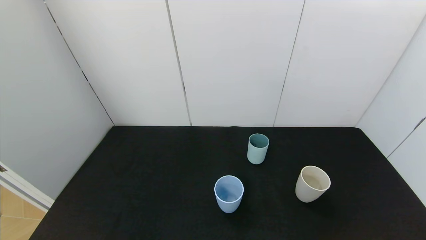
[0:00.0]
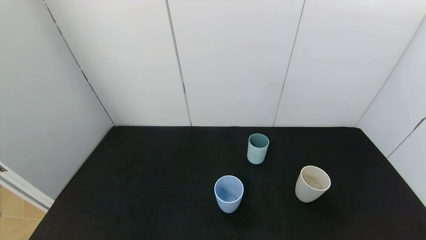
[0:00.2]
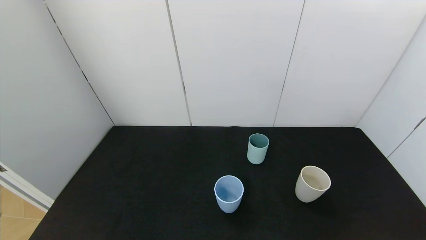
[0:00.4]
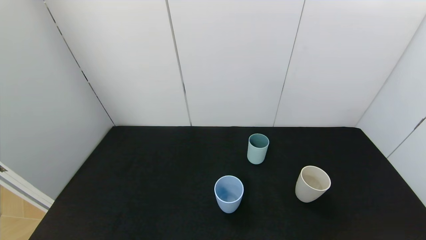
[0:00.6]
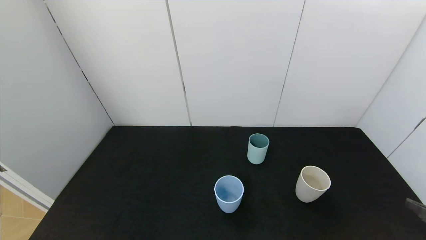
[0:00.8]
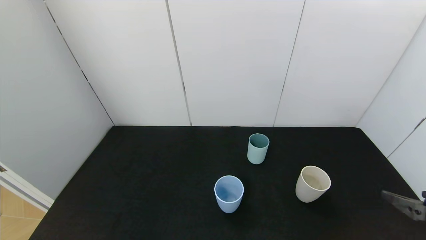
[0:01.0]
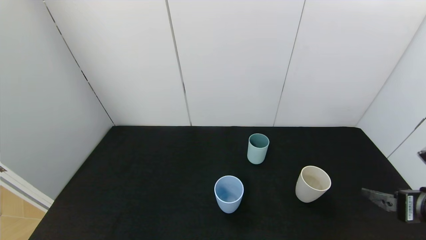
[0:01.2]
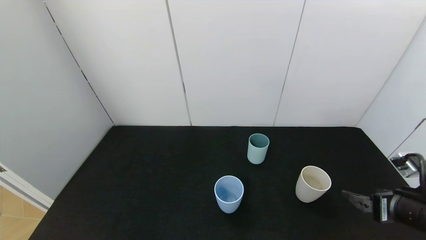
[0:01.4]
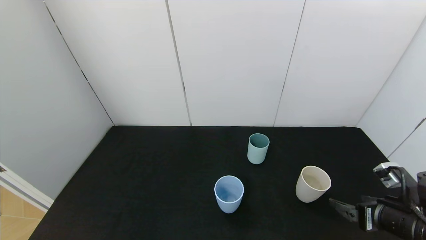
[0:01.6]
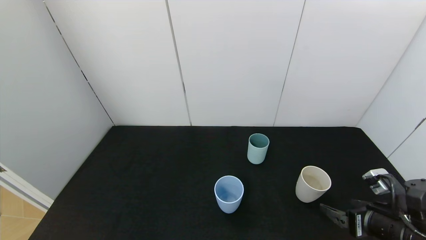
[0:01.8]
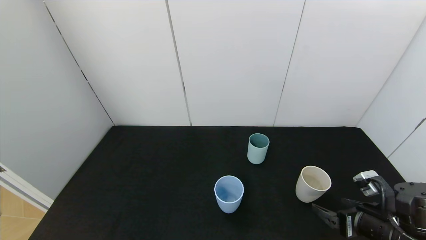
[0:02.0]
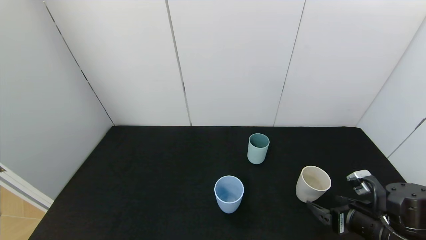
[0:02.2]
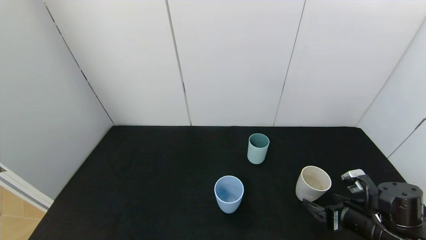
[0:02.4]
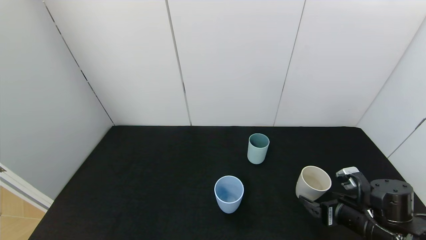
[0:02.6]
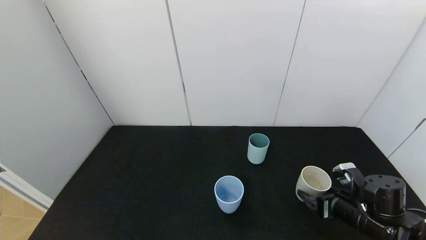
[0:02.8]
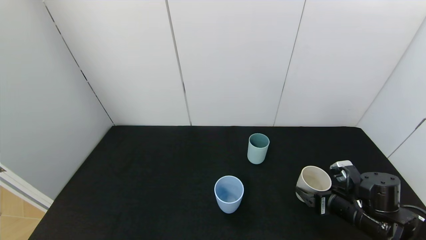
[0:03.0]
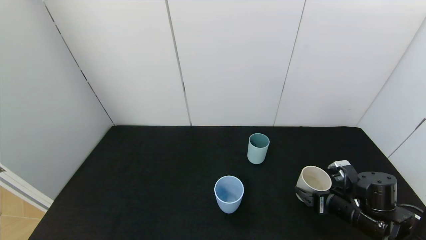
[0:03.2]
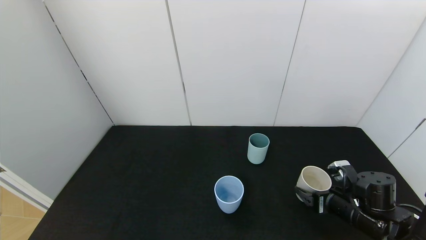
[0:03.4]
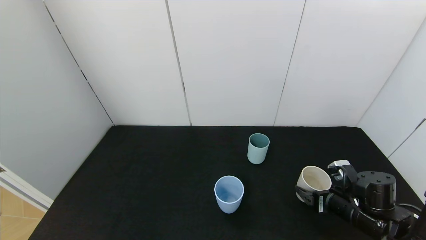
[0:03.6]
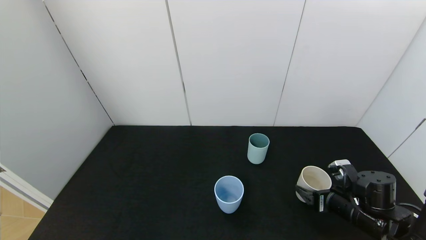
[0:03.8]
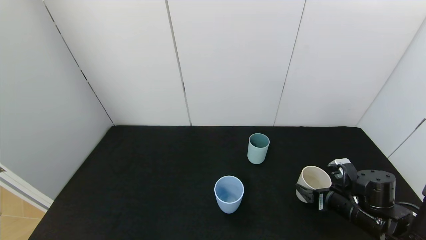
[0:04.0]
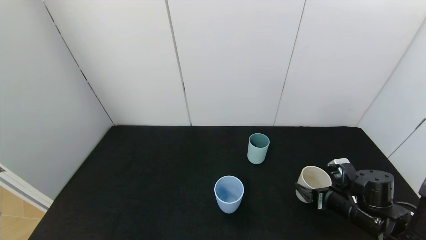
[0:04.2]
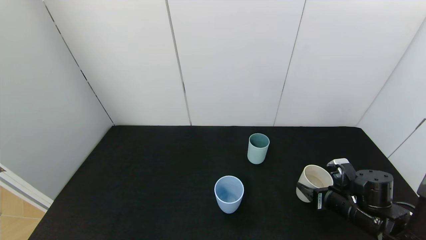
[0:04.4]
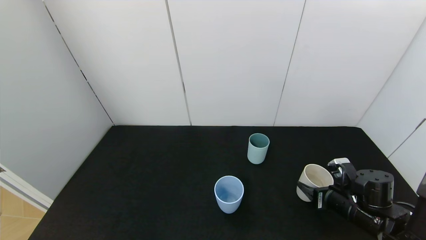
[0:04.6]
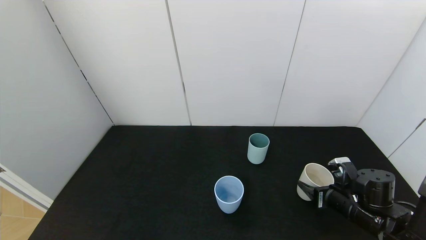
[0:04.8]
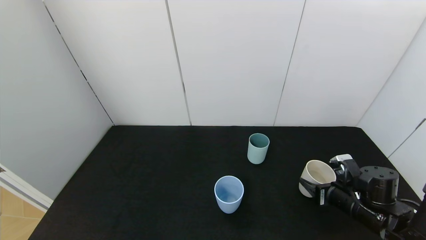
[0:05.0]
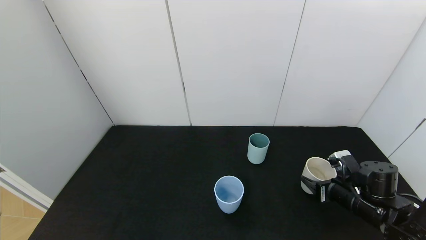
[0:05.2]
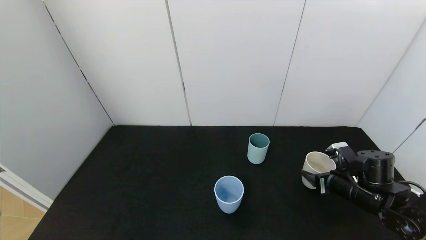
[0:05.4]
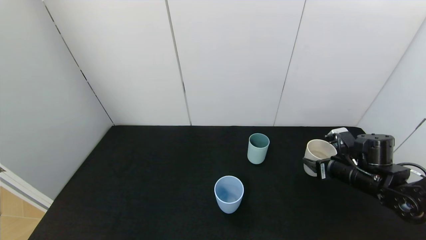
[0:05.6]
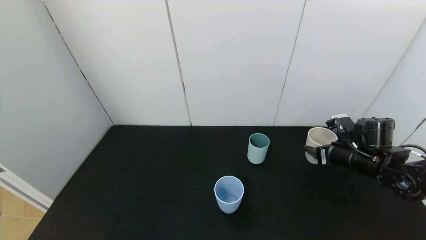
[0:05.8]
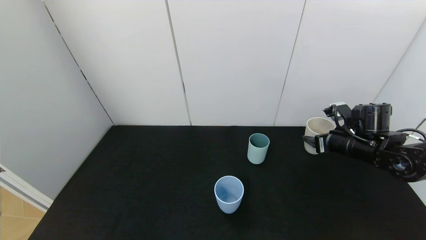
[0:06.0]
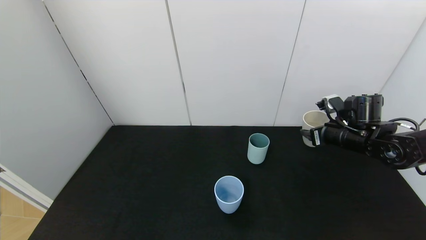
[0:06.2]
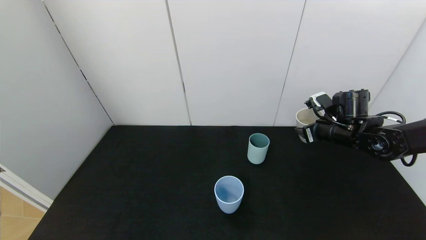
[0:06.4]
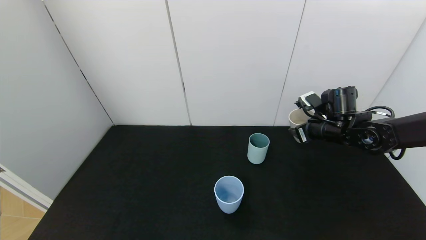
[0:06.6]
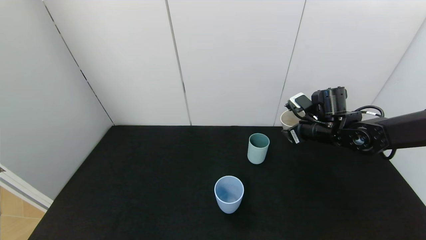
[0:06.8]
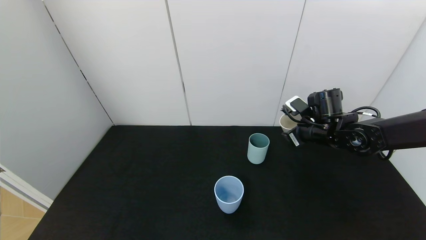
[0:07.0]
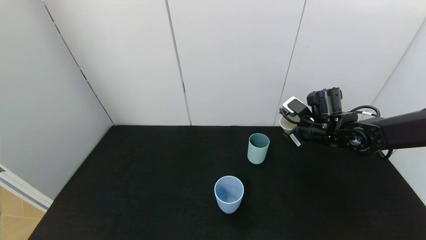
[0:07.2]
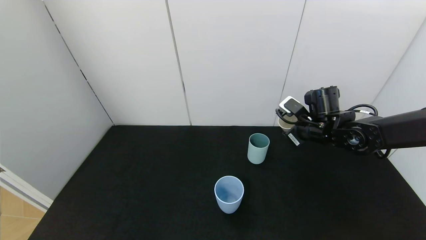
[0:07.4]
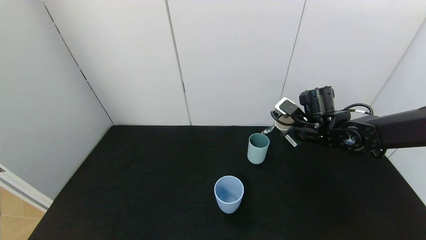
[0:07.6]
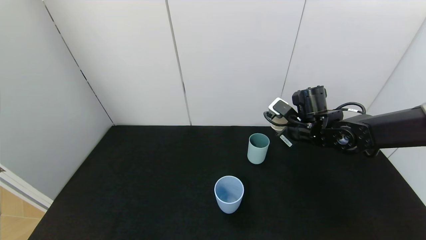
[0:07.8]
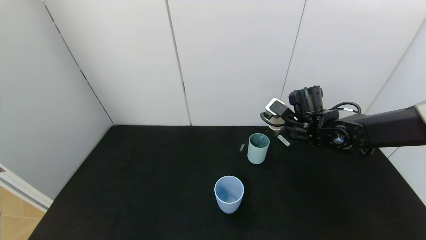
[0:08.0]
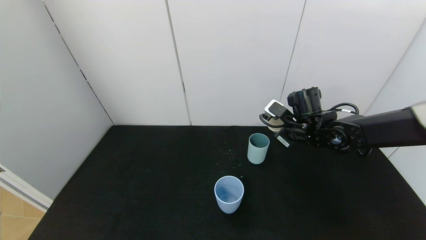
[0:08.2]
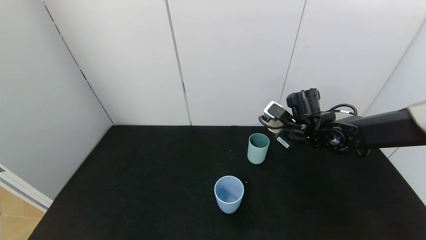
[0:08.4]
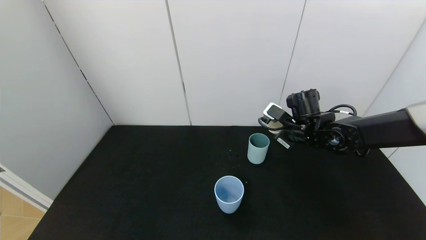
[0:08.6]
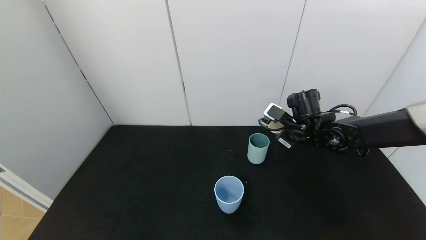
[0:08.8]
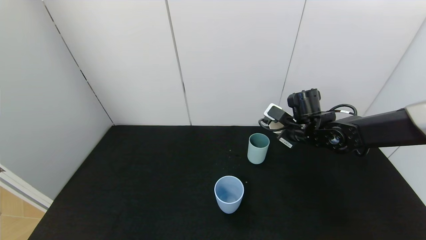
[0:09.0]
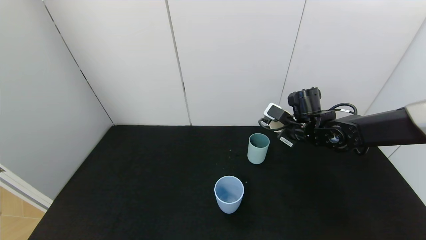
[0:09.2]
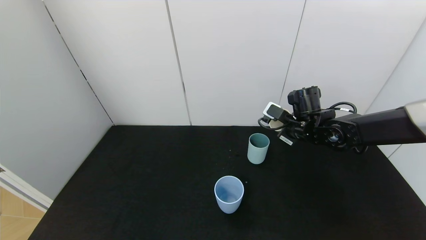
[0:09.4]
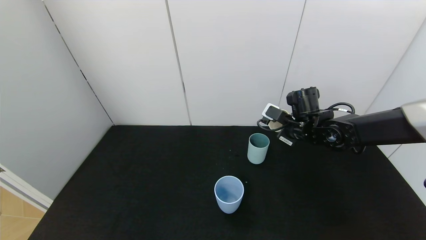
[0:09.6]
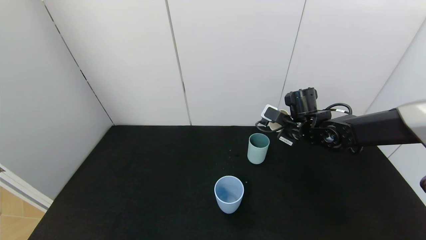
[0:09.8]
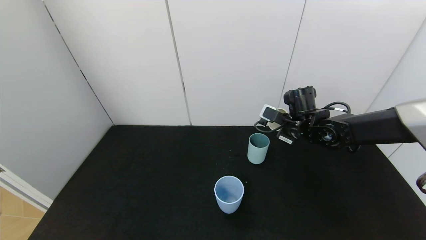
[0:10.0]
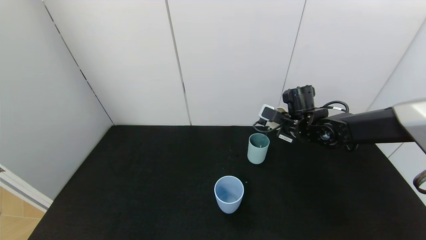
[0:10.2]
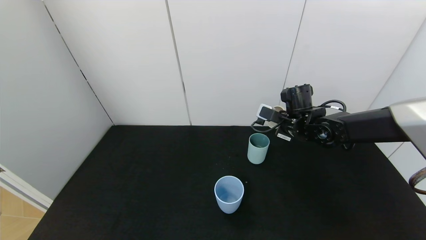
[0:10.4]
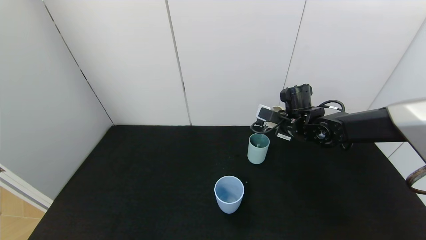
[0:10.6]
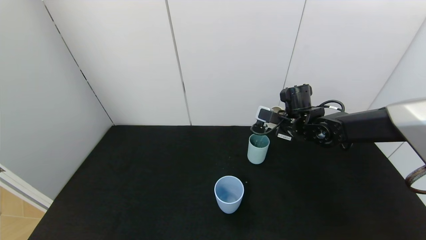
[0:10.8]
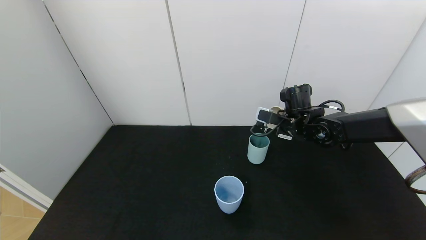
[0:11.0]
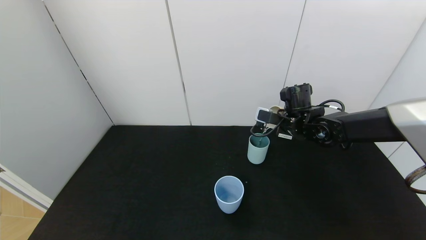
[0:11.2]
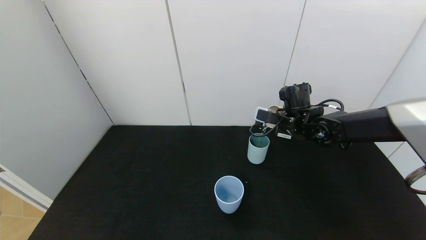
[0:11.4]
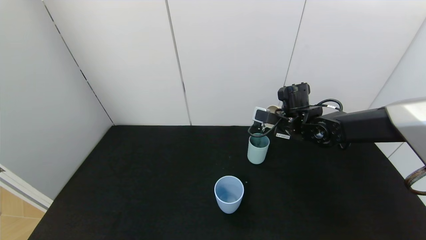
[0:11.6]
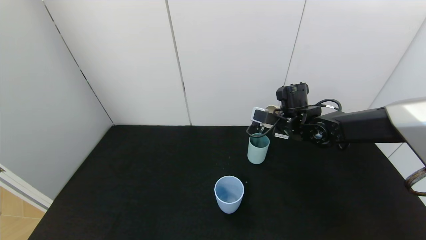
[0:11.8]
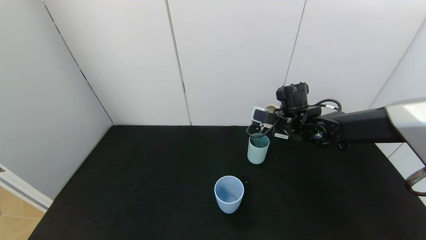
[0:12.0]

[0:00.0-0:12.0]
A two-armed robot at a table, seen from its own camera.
Task of the whole recording: use the gripper to pour the water into the other two cups on black table.
Step, 0:00.0 to 0:04.4: Grasp the white cup with the right gripper.
0:00.0 to 0:01.6: The right gripper heads forward, covering some 20 cm.
0:01.6 to 0:03.0: The right gripper heads forward and downward, covering some 10 cm.
0:03.0 to 0:04.4: The right gripper closes up.
0:04.4 to 0:06.0: The right gripper moves upward and forward, approximately 15 cm.
0:06.0 to 0:07.6: The right gripper is displaced to the left by about 10 cm.
0:07.6 to 0:09.0: The grippers make only small movements.
0:09.0 to 0:10.4: The grippers move only a little.
0:10.4 to 0:12.0: The grippers stay close to where they were, moving slightly.

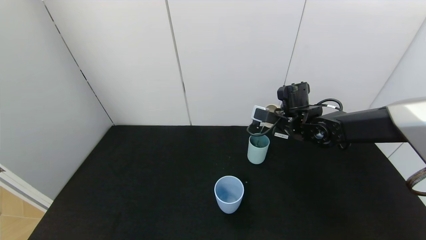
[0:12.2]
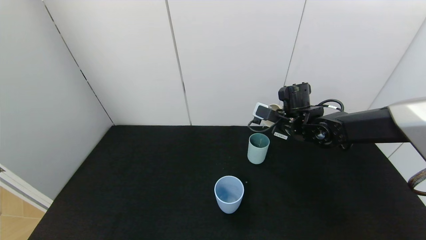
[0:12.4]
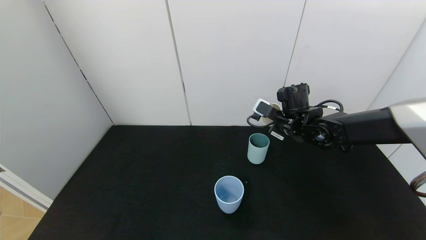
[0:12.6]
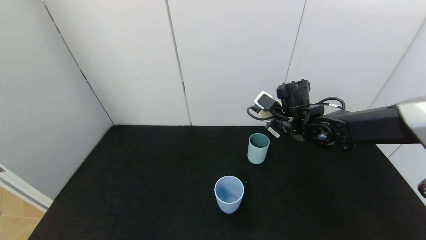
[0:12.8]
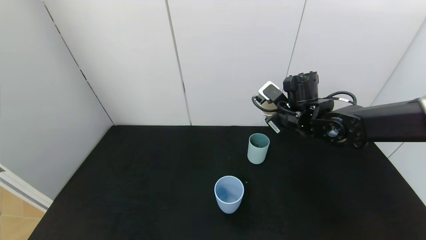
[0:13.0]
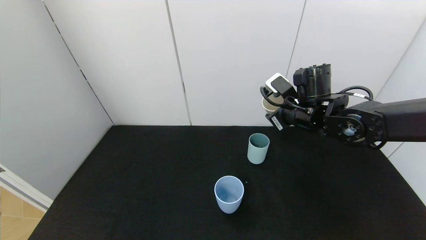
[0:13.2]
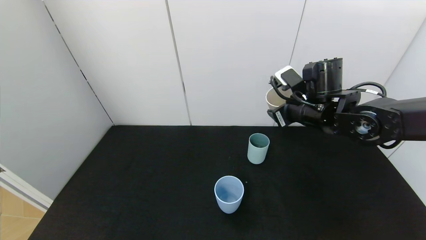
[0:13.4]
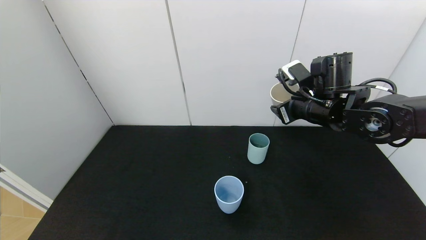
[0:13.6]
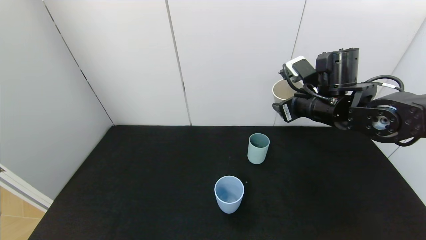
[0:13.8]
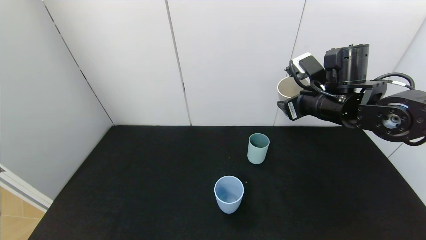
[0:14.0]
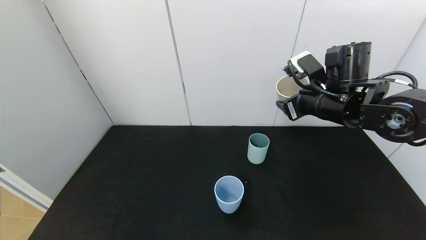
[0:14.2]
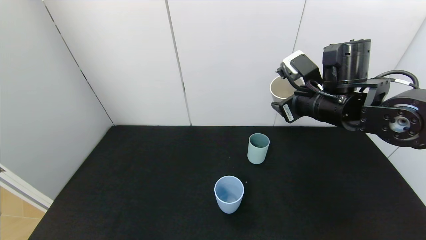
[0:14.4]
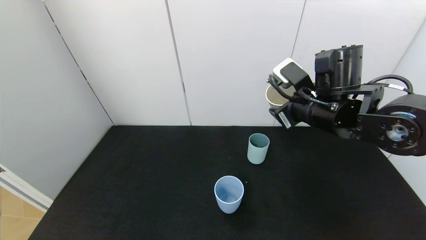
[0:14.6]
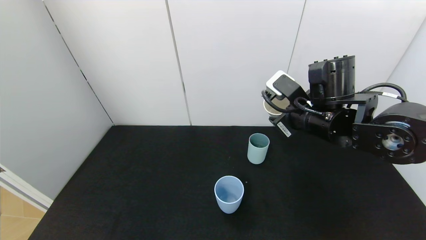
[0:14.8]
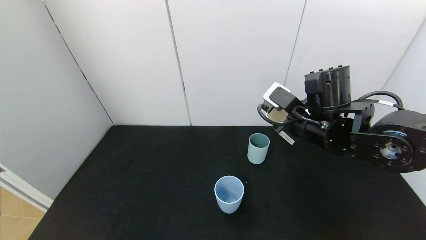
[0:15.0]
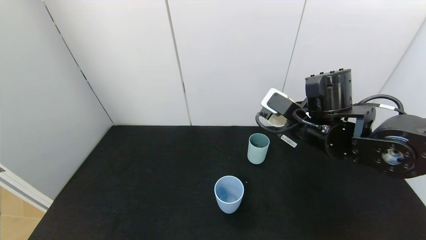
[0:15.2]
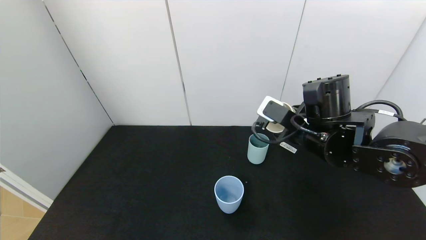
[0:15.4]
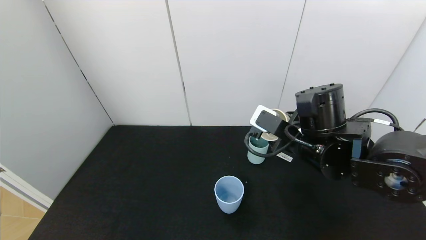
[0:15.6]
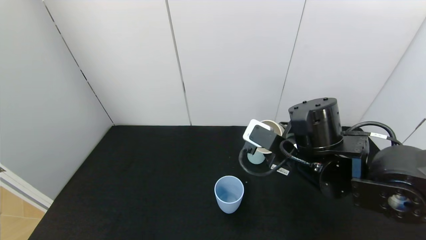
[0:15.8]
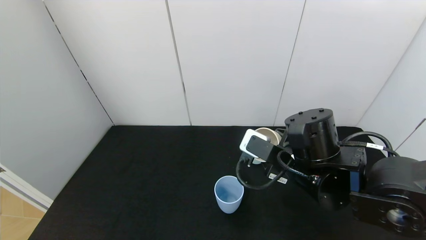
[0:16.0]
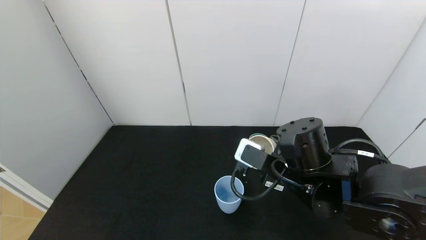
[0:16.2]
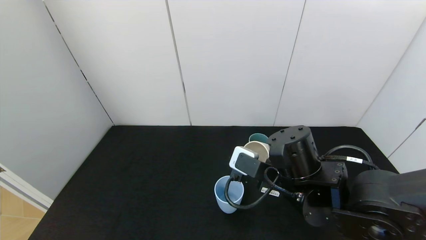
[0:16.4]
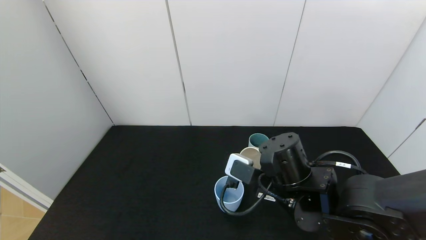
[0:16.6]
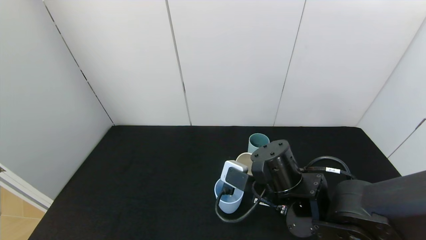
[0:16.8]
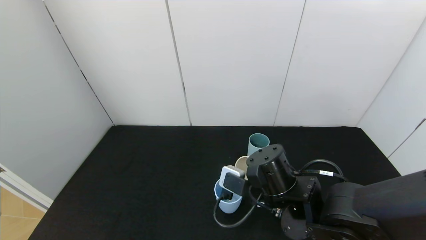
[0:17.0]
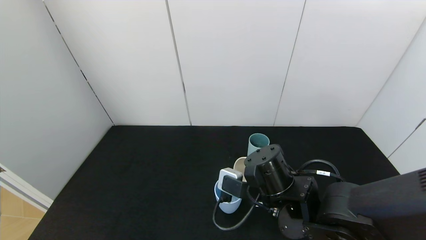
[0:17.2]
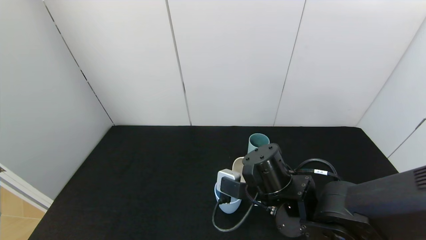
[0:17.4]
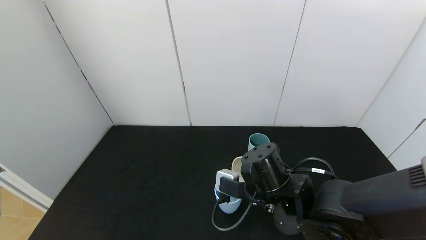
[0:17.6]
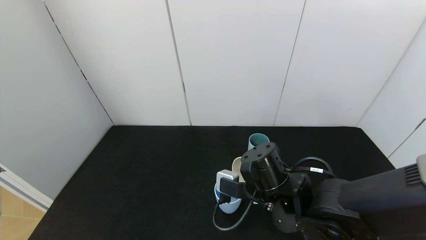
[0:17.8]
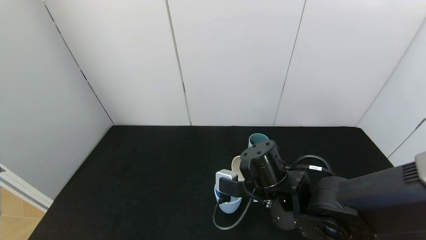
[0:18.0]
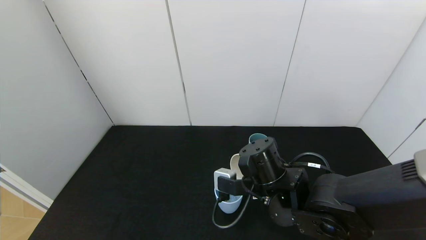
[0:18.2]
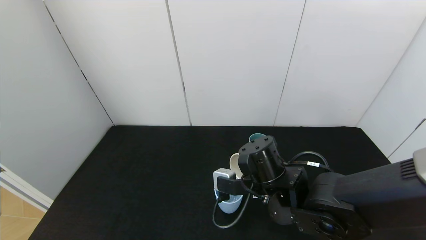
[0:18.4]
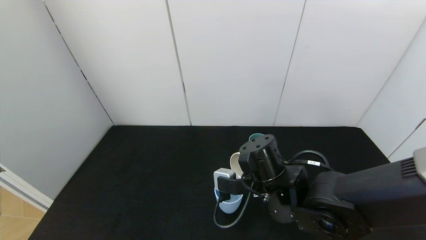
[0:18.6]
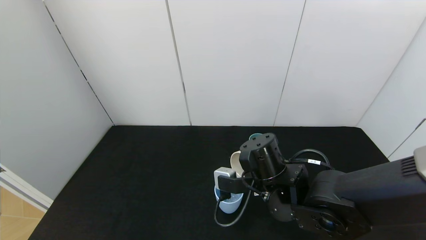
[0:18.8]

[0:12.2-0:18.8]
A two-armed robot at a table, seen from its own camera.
Task of the whole recording: use the gripper to pour the water into the other two cups on black table.
0:12.2 to 0:13.8: The right gripper is displaced upward and backward by roughly 10 cm.
0:13.8 to 0:15.4: The right gripper heads backward, covering roughly 5 cm.
0:15.4 to 0:17.2: The right gripper is displaced downward and to the left by roughly 10 cm.
0:17.2 to 0:18.8: The grippers stay close to where they were, moving slightly.
